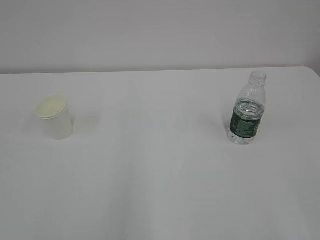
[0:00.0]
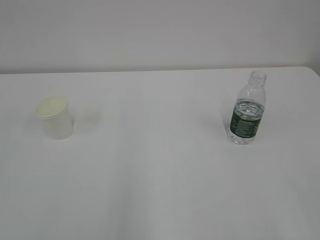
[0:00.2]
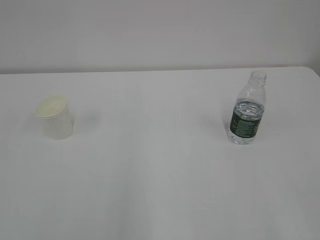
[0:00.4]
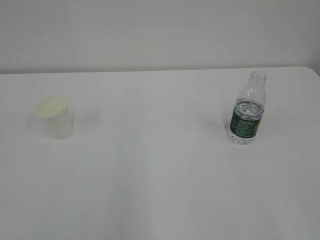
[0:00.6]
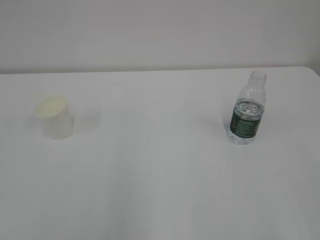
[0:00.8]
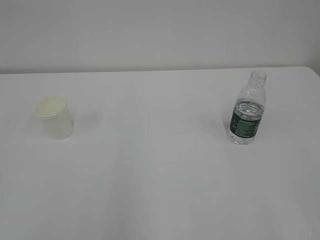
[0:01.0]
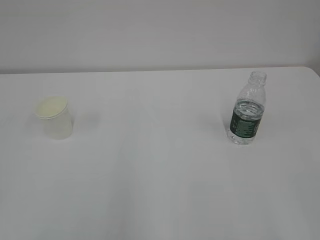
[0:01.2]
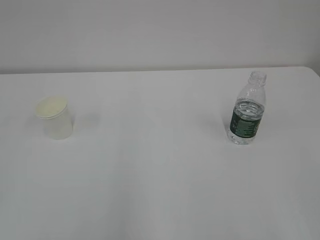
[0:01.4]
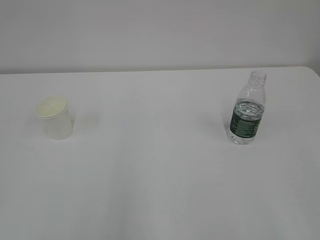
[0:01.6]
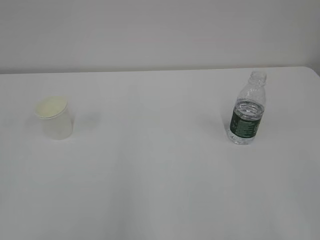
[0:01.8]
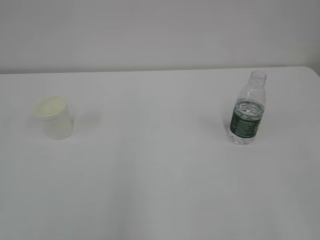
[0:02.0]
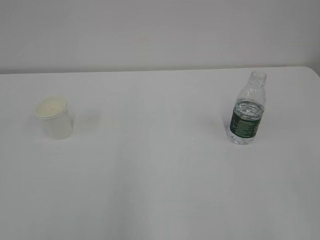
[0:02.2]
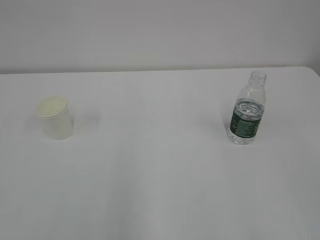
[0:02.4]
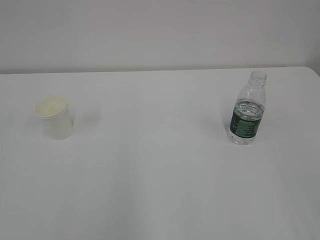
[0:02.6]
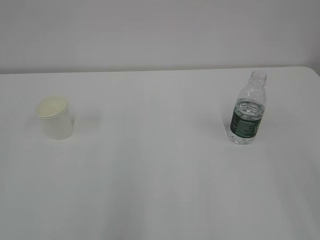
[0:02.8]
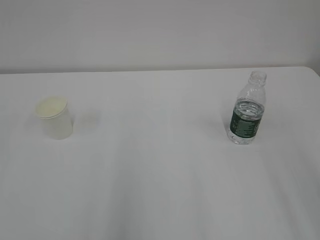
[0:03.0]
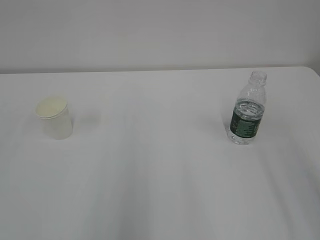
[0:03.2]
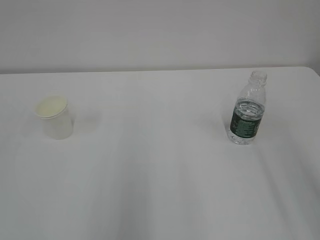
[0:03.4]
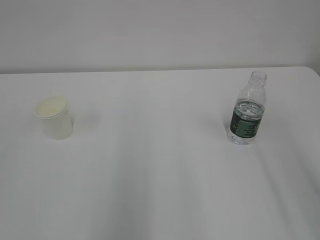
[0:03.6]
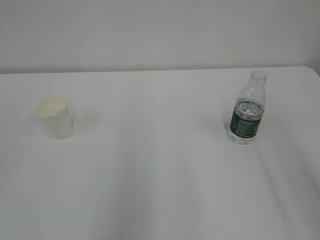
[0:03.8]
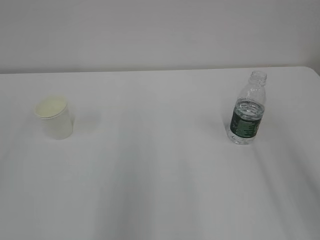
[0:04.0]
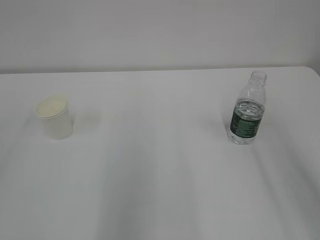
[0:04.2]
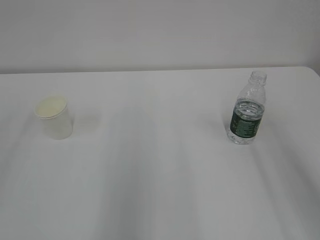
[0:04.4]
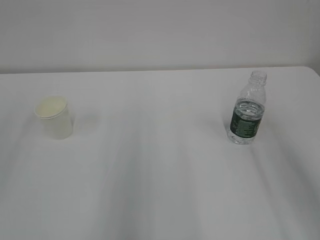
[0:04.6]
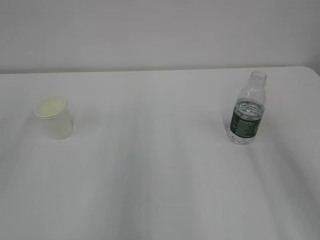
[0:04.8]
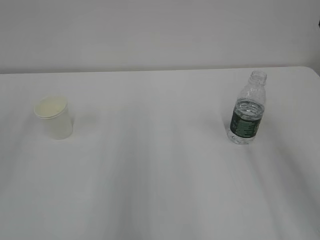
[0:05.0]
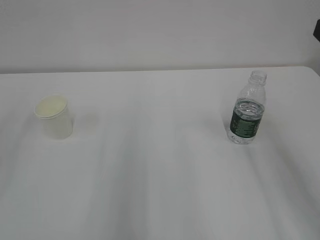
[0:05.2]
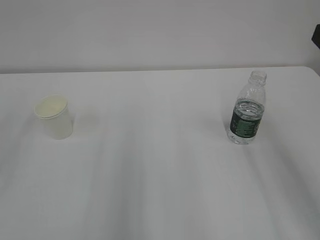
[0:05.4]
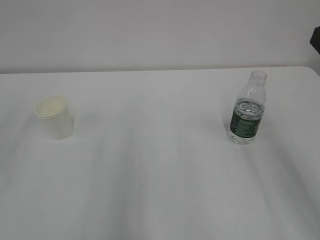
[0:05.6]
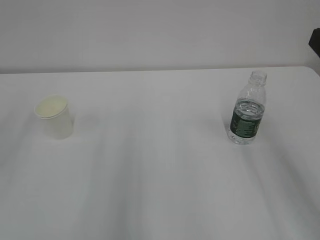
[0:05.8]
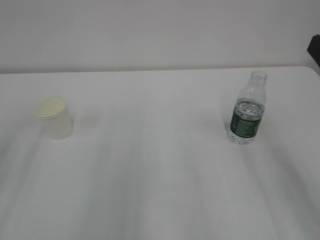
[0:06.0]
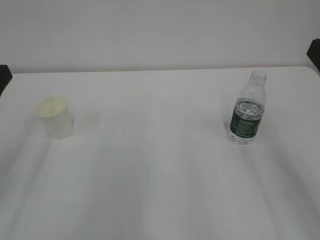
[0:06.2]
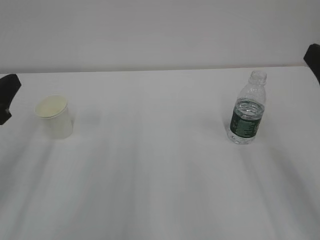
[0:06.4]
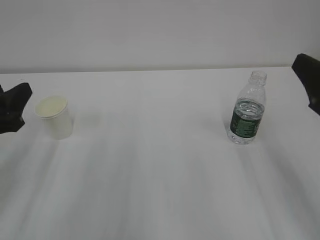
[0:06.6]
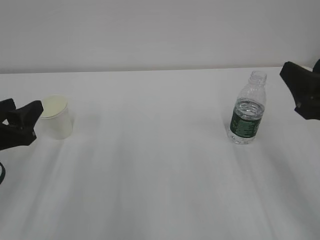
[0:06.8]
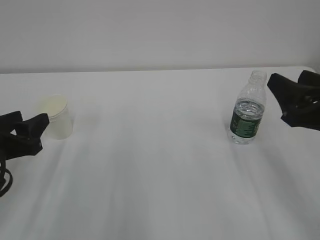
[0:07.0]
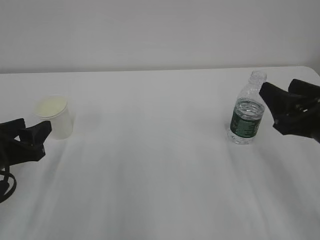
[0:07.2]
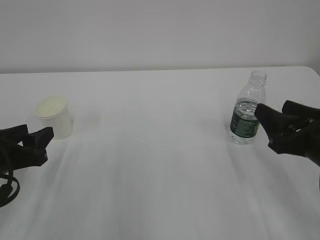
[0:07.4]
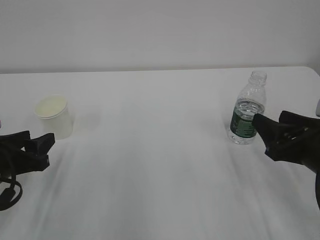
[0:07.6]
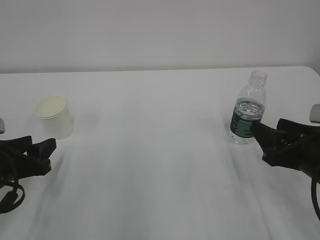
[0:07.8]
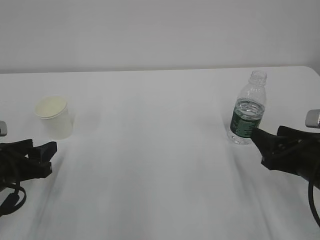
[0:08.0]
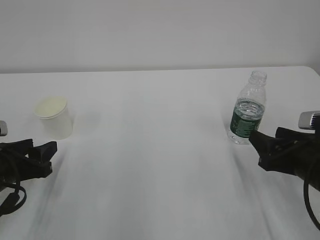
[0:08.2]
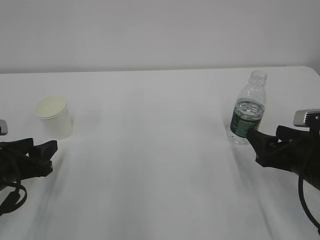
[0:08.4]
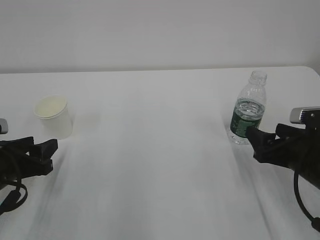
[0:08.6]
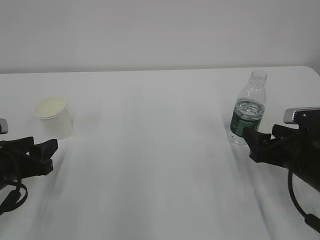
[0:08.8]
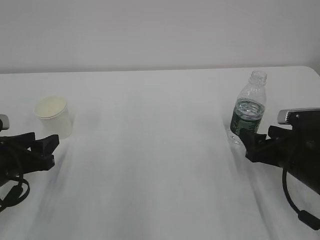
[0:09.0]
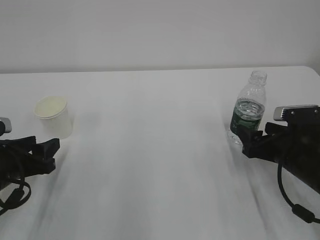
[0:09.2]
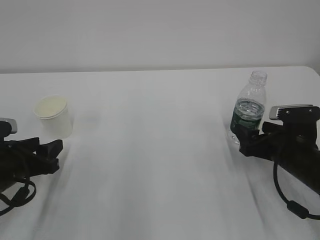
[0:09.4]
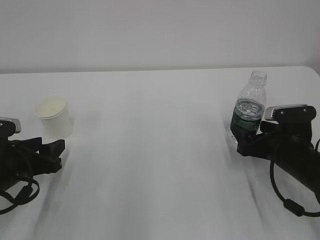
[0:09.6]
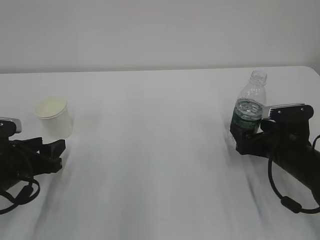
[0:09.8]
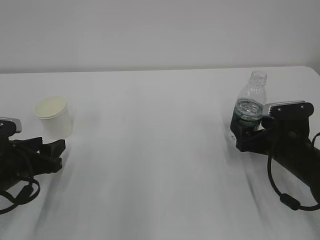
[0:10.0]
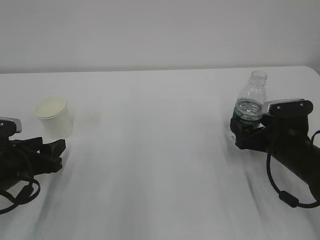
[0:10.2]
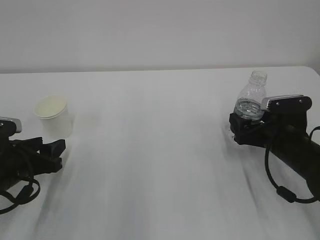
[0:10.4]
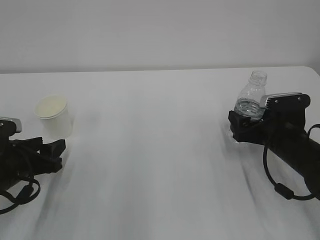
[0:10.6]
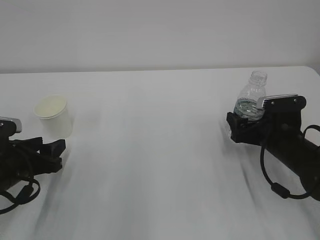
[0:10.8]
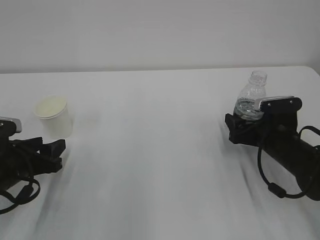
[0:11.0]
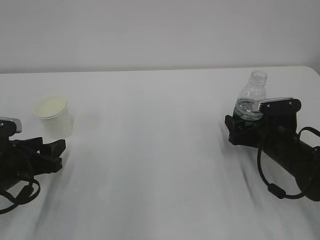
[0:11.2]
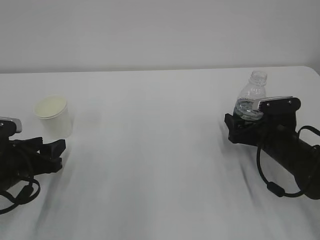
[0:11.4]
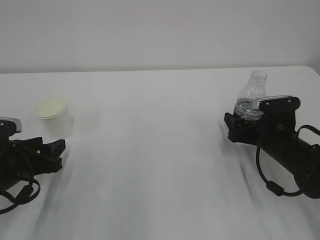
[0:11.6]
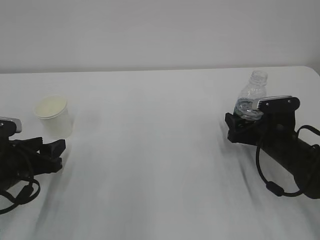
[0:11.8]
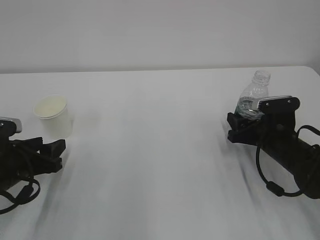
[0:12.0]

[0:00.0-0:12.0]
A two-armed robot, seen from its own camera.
0:06.0 to 0:07.6: Both grippers travel together downward, approximately 15 cm.
0:07.6 to 0:09.0: The right gripper travels downward by some 5 cm.
0:09.0 to 0:10.4: There are only small adjustments of the grippers.
0:10.4 to 0:12.0: The right gripper closes its fingers.

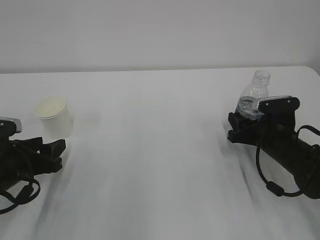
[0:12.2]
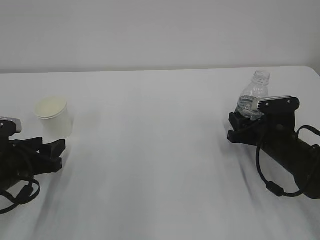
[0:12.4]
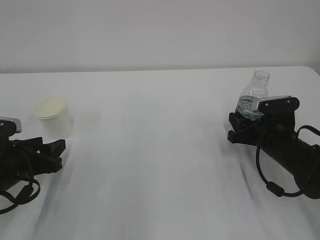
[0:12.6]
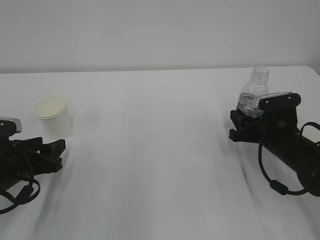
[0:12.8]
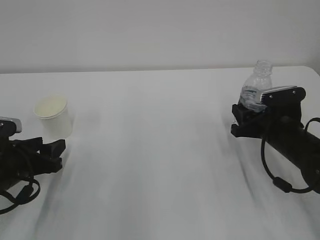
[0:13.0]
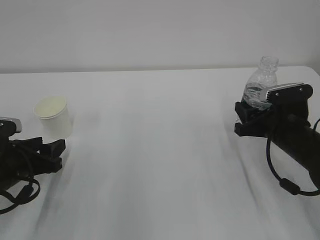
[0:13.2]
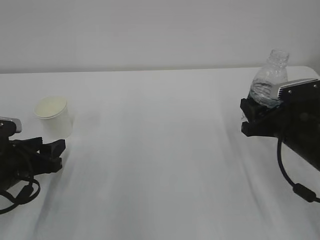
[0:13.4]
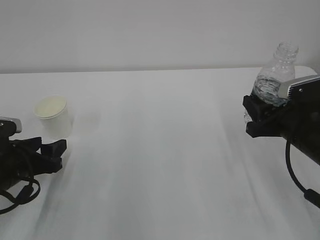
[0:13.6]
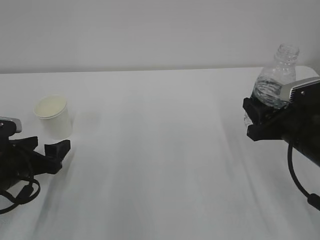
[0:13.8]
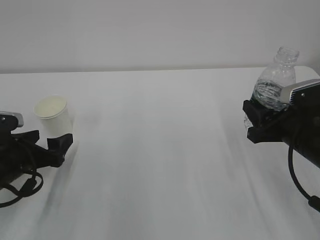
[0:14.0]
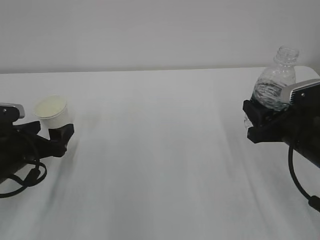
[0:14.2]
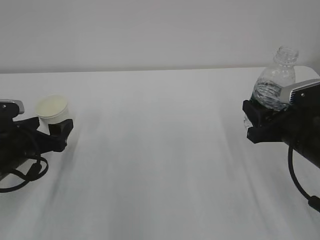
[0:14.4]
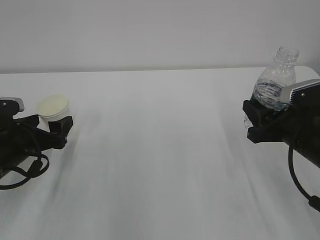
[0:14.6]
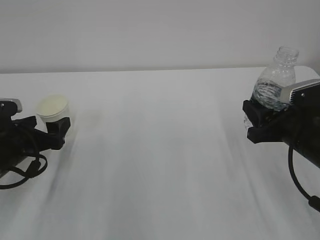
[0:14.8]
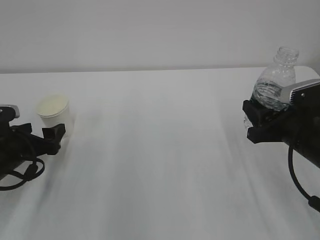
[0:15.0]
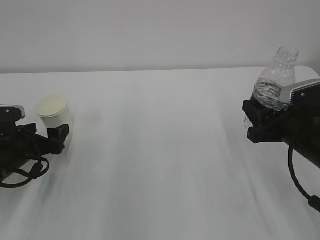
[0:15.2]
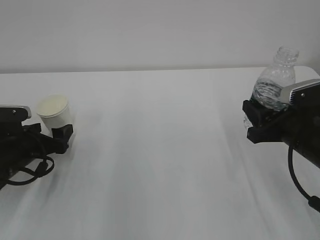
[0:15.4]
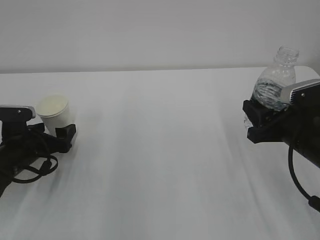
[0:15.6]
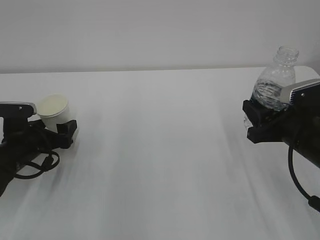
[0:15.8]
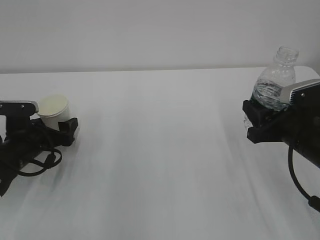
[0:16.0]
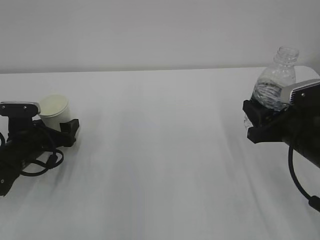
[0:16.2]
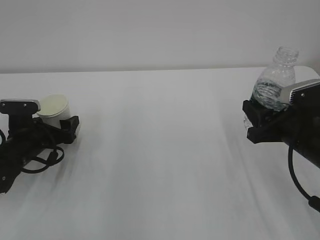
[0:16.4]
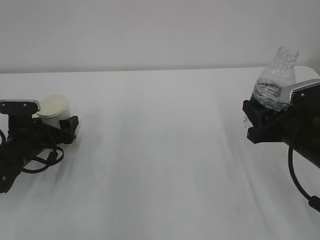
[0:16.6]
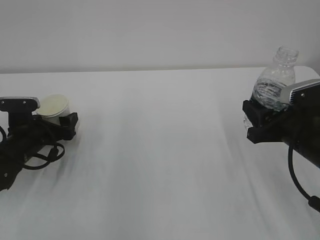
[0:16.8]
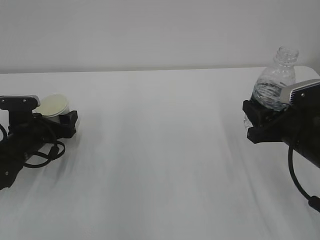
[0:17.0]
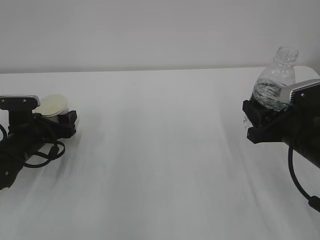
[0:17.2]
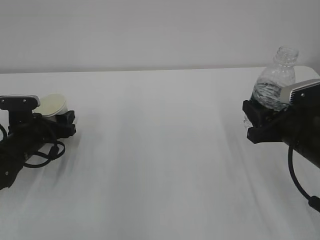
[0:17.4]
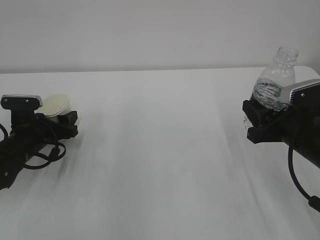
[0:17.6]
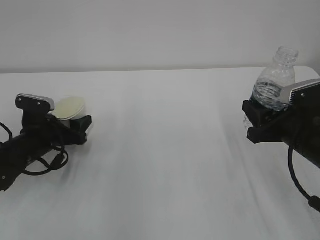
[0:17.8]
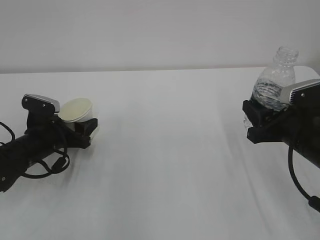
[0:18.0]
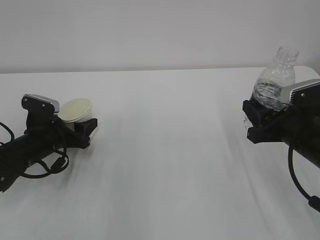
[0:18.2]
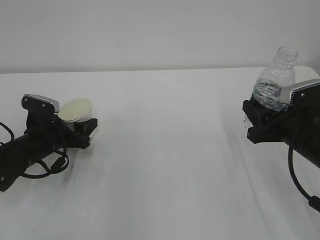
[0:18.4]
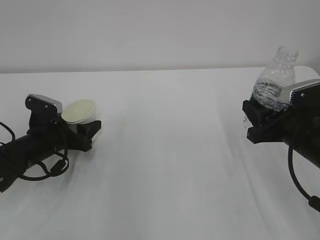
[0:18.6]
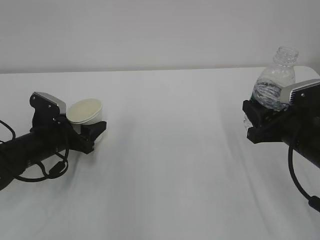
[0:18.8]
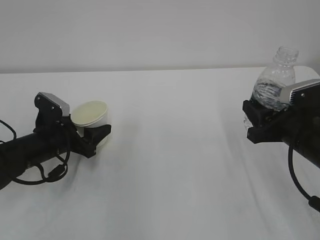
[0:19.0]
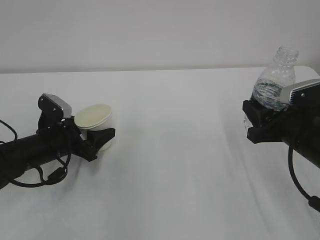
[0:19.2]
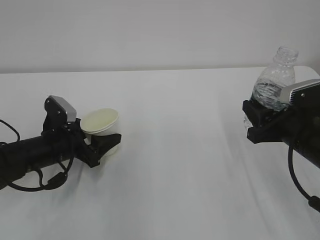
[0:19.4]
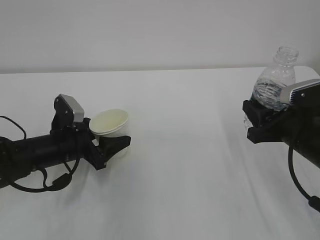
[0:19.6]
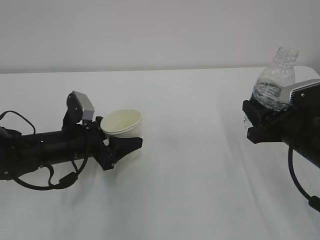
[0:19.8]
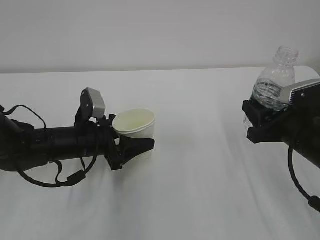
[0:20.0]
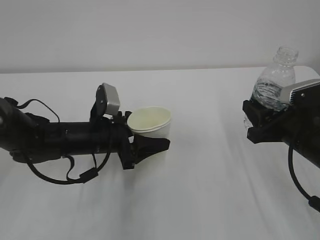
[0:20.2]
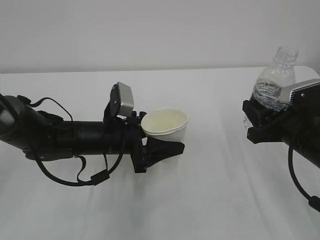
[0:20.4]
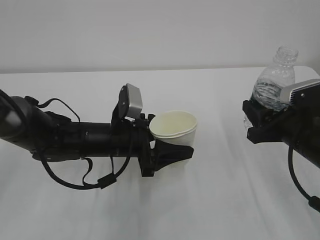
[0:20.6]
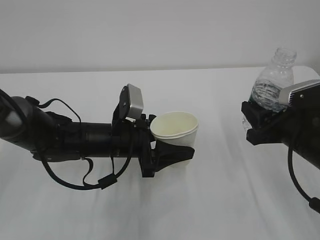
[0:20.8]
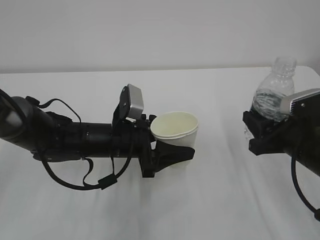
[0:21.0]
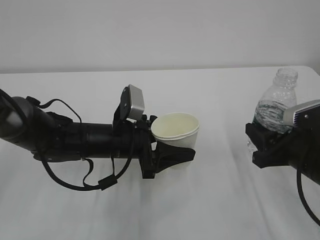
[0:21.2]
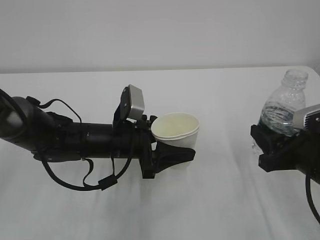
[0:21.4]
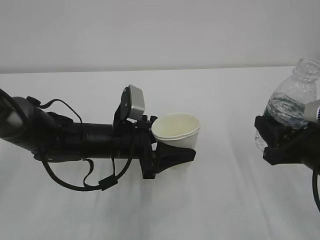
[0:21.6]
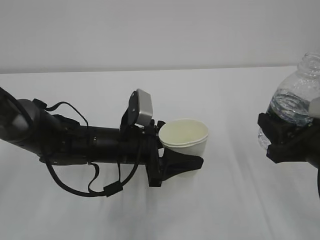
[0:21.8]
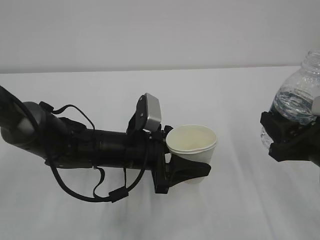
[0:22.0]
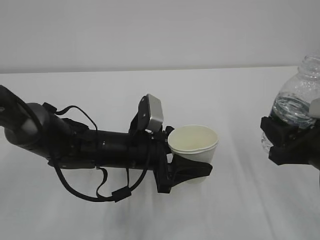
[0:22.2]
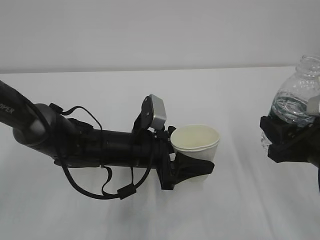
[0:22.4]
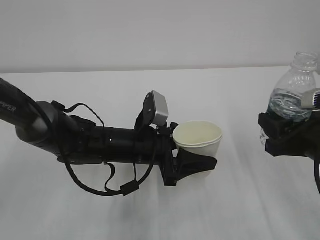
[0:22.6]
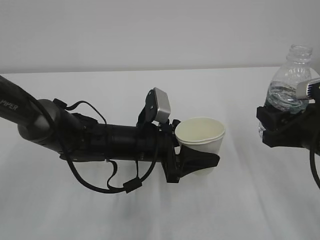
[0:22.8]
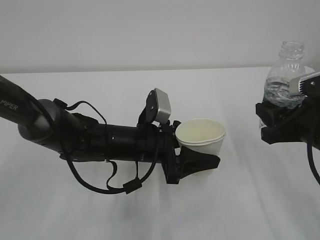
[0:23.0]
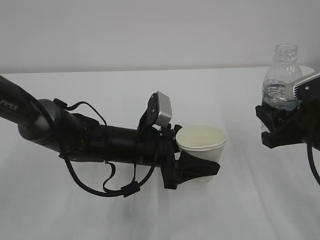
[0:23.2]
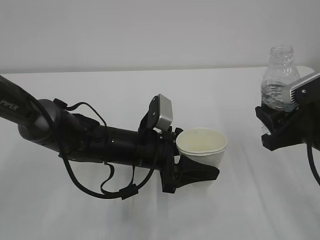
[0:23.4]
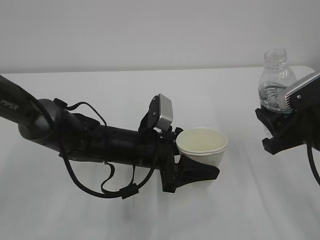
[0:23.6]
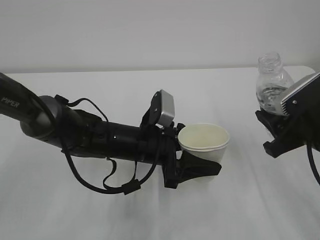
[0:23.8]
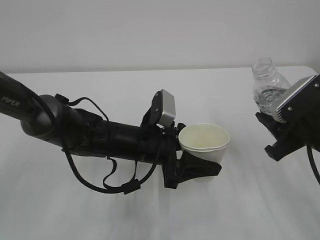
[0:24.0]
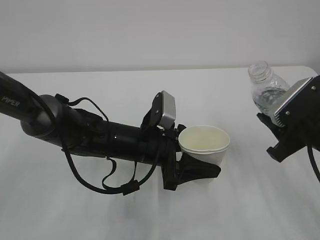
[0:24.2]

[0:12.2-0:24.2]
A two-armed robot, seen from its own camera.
0:12.2 to 0:13.8: The right gripper travels upward and backward by roughly 10 cm.
0:13.8 to 0:15.2: The grippers stay close to where they were, moving slightly.
0:15.2 to 0:16.6: There are only small adjustments of the grippers.
0:16.6 to 0:18.2: The left gripper closes up.
0:18.2 to 0:19.8: The left gripper shifts approximately 5 cm to the right.
0:19.8 to 0:21.2: The left gripper goes some 10 cm to the right.
0:21.2 to 0:22.6: The grippers move only a little.
